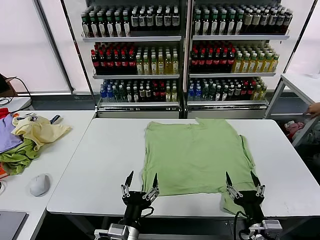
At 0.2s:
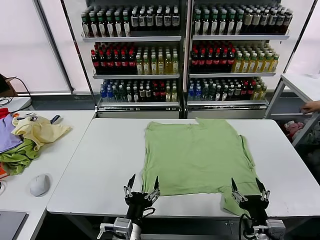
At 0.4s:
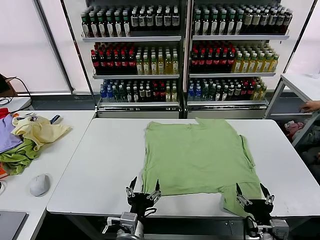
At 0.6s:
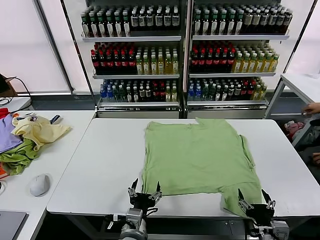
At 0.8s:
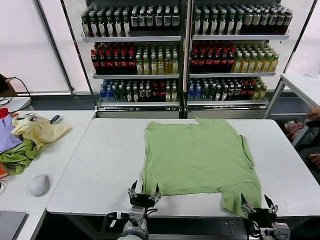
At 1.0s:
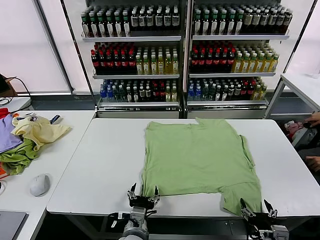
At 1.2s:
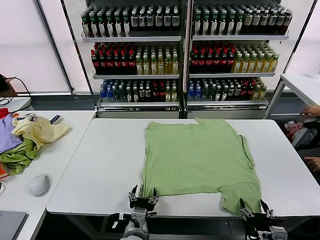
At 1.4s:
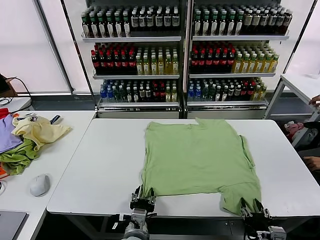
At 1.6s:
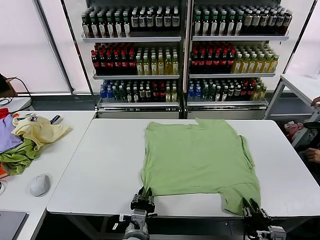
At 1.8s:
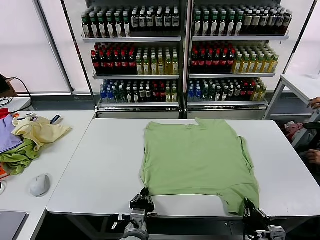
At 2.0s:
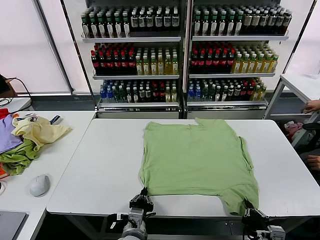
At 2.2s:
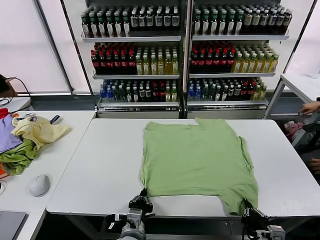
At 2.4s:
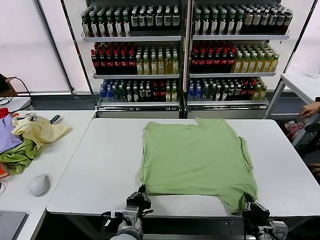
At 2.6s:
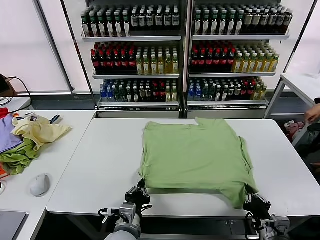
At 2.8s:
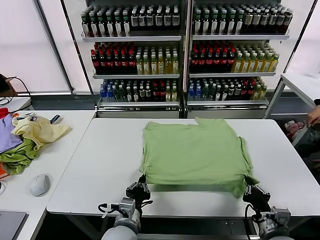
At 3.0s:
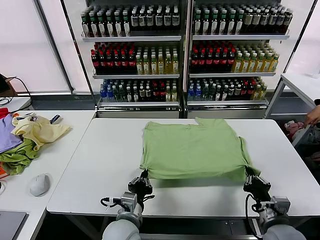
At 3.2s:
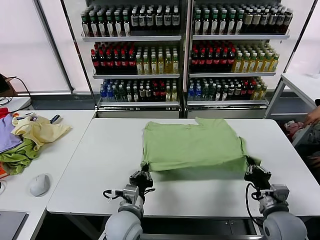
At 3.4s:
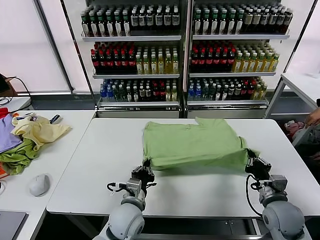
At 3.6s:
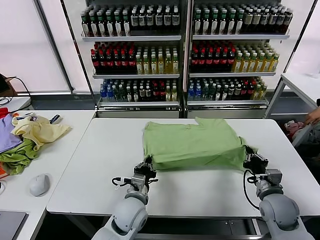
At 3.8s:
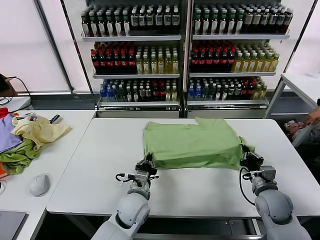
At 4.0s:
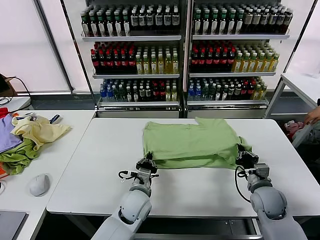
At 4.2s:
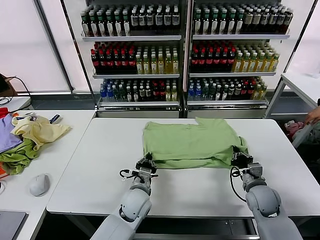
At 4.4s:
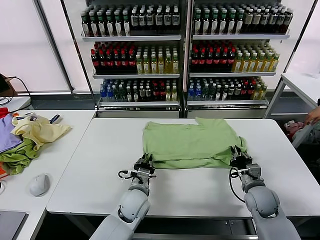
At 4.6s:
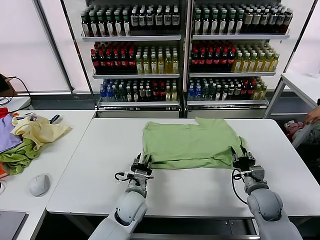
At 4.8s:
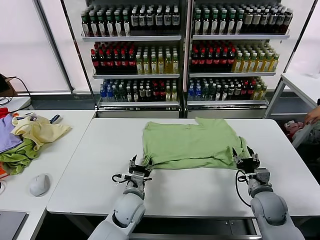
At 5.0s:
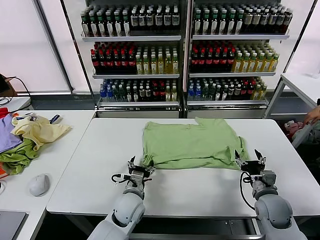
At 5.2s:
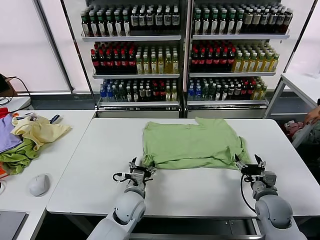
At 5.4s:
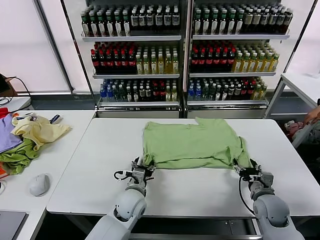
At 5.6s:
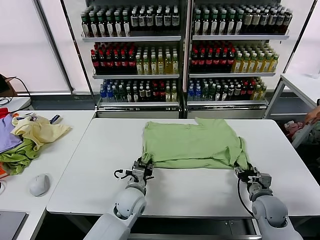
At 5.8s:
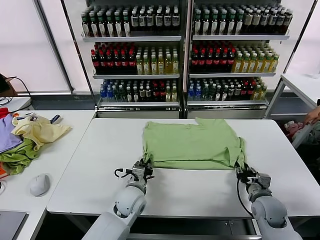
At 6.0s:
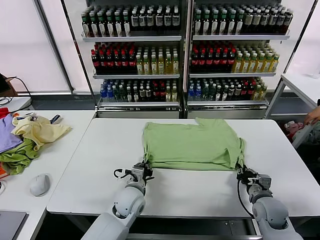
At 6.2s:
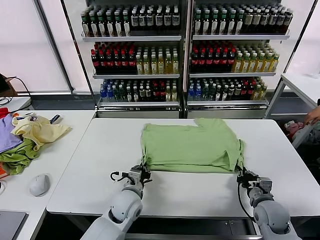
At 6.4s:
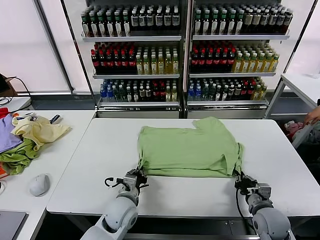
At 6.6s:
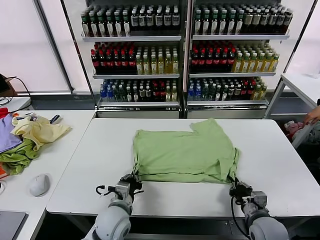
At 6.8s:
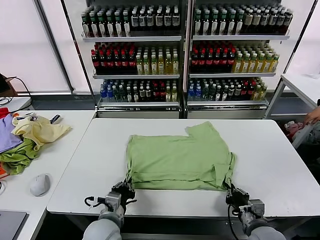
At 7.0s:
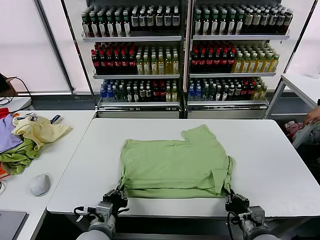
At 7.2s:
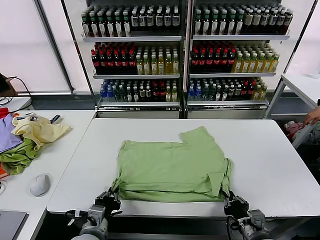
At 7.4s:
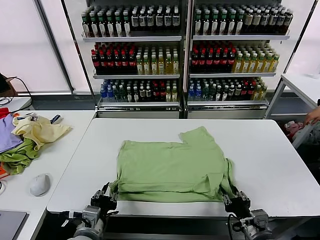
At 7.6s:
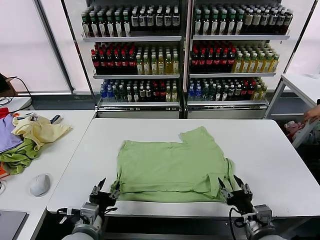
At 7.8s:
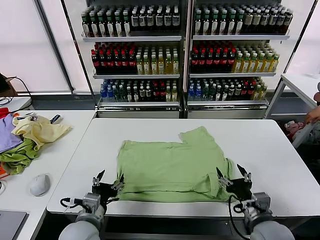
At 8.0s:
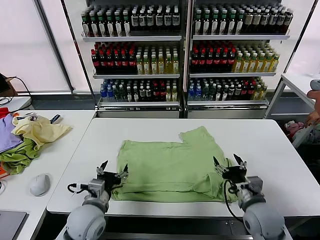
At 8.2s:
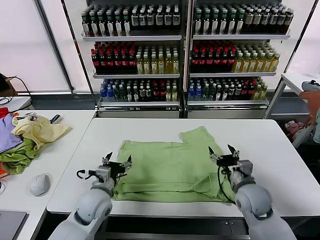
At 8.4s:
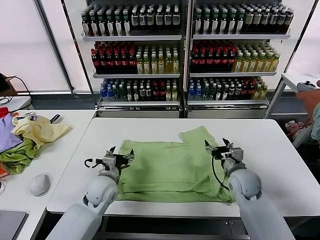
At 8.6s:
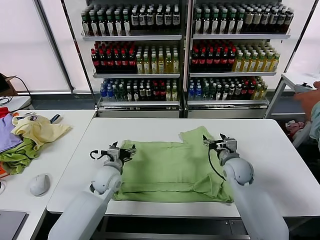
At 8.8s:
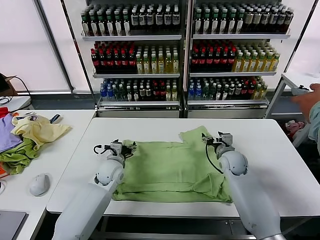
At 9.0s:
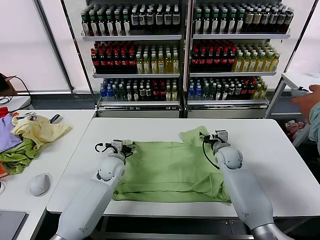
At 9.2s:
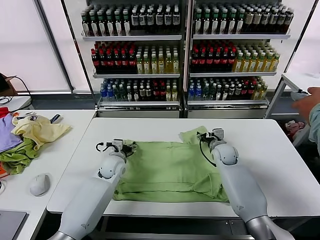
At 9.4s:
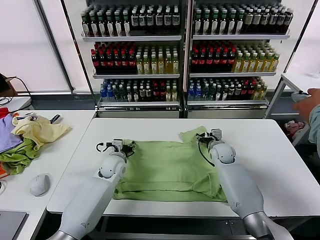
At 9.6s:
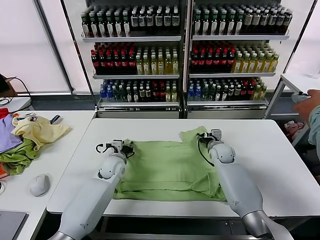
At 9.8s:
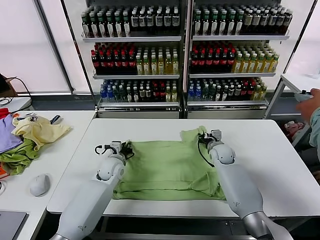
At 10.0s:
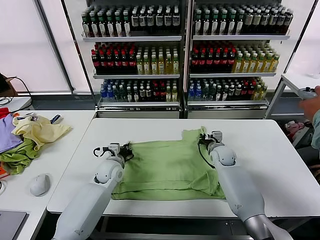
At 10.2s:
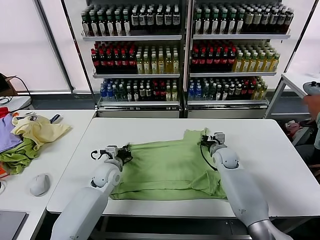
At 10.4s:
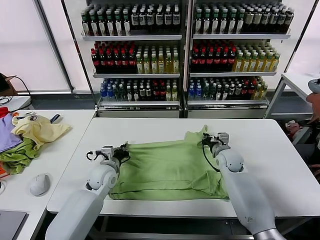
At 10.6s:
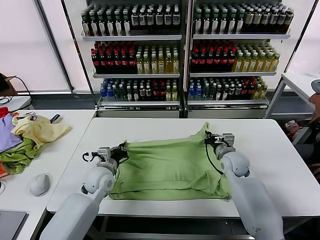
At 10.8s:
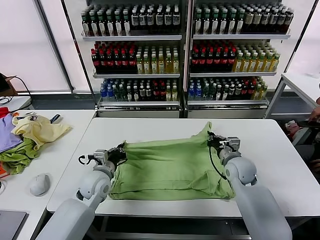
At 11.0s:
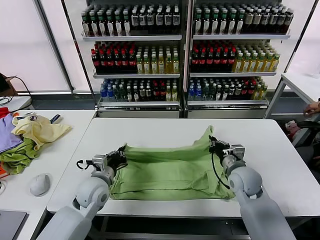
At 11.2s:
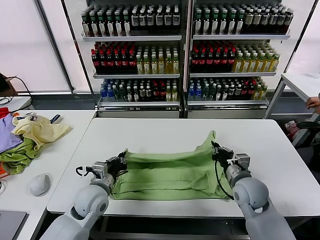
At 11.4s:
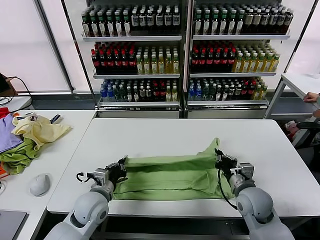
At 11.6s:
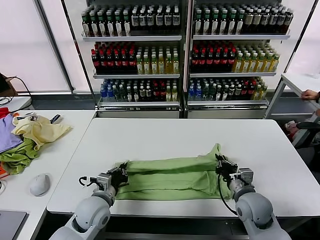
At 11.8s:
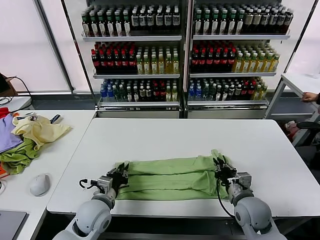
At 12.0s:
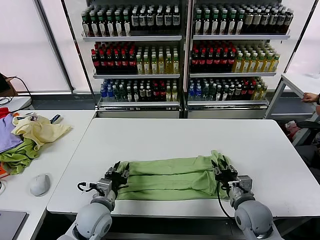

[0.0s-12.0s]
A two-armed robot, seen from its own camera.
Task of the whole recording: fold and organize the clothes.
Step, 0.0s to 1.8s: use both grippers simultaneously to clamp the lower edge of the clothing fabric.
Step, 2.0s to 4.6s: use both grippers to drag the lower edge of the fabric forward and fold it over the upper edge.
Step, 4.8s to 7.4s: Drag the clothes downward with both gripper.
Step, 7.6s to 10.0s: use both grippers simultaneously to clamp the upper edge of the clothing fabric.
1.6s to 3.0s: The right gripper heads forward and upward, covering roughly 10 cm, while the left gripper moves roughly 5 cm.
3.0s to 4.4s: Both grippers move forward, approximately 10 cm. The left gripper opens. Meanwhile the right gripper opens up.
4.4s to 6.0s: The right gripper opens, then closes again. The left gripper opens, then closes once more.
6.0s to 7.6s: The right gripper moves backward, to the left and upward, approximately 15 cm, and opens its fingers. The left gripper shifts approximately 20 cm backward and to the left, and opens up.
7.6s to 9.0s: The grippers both shift forward by approximately 30 cm.
9.0s to 10.4s: The right gripper closes its fingers, while the left gripper closes.
10.4s to 12.0s: Both grippers travel together backward, roughly 15 cm. The left gripper opens; the right gripper opens up.

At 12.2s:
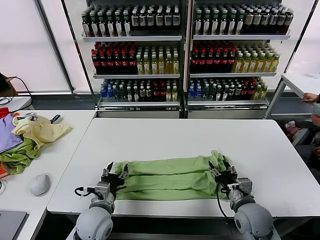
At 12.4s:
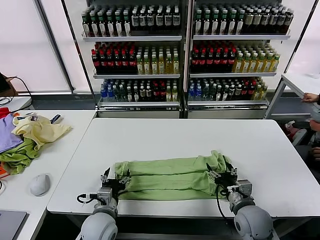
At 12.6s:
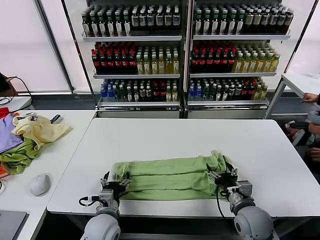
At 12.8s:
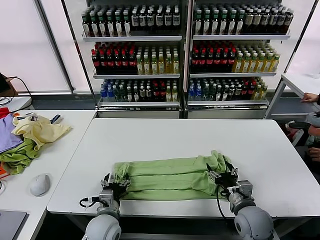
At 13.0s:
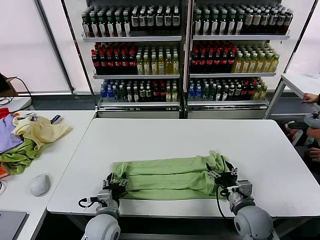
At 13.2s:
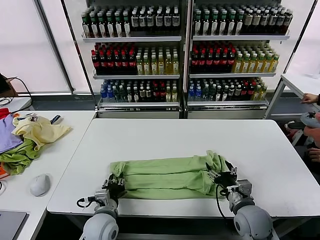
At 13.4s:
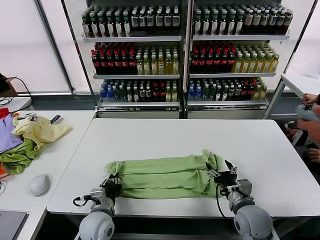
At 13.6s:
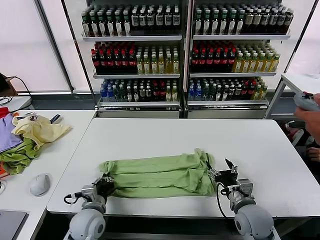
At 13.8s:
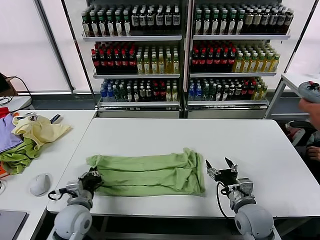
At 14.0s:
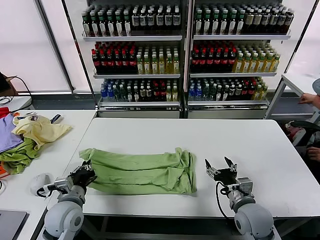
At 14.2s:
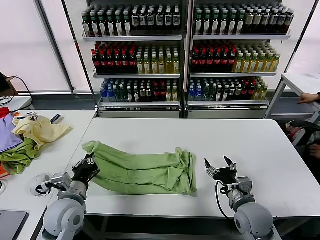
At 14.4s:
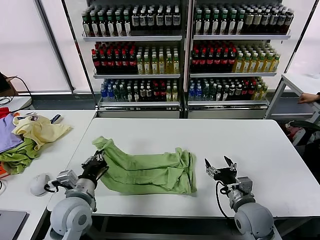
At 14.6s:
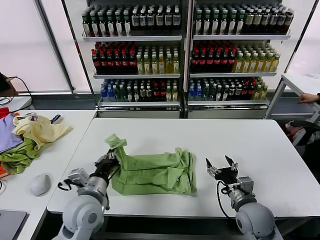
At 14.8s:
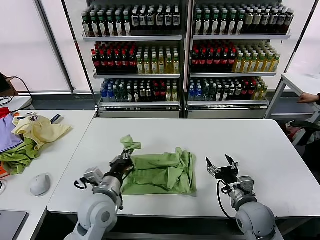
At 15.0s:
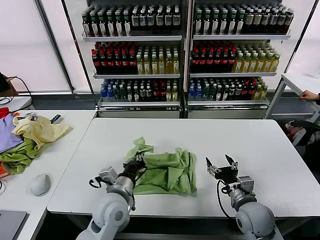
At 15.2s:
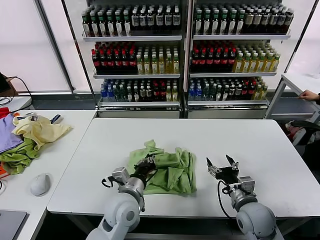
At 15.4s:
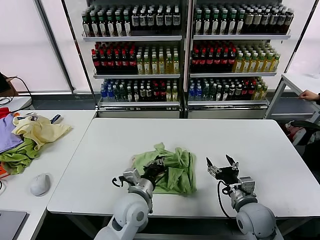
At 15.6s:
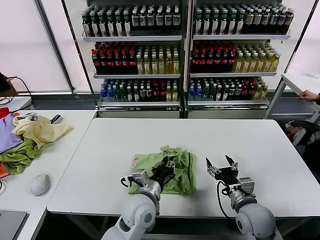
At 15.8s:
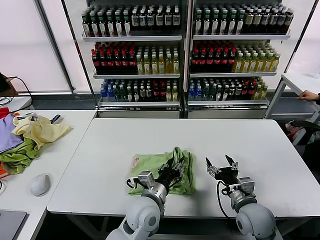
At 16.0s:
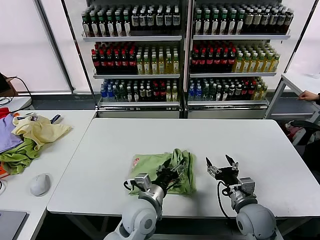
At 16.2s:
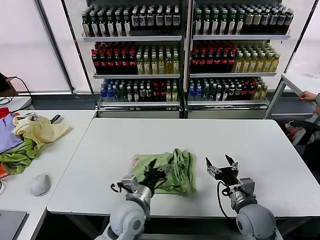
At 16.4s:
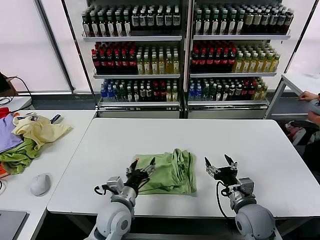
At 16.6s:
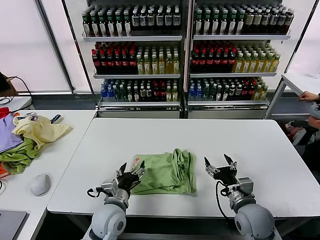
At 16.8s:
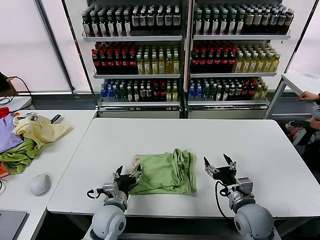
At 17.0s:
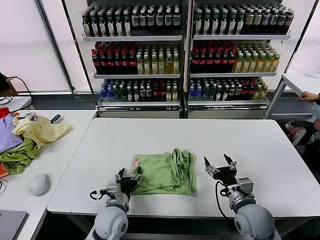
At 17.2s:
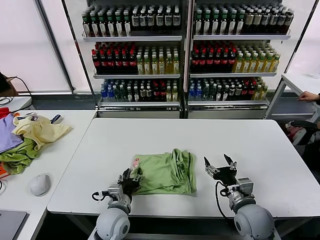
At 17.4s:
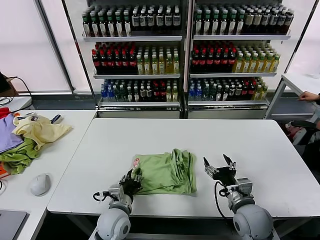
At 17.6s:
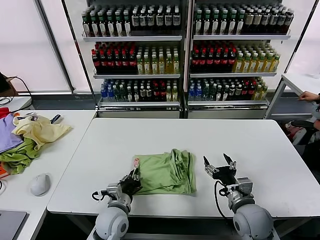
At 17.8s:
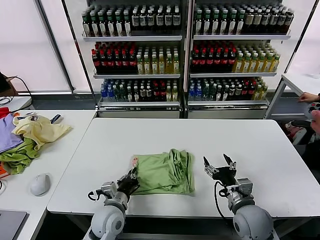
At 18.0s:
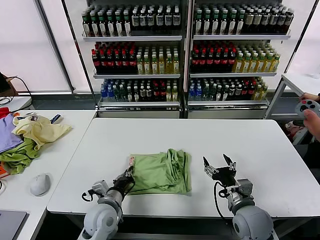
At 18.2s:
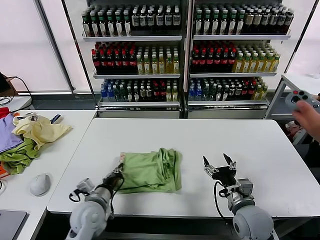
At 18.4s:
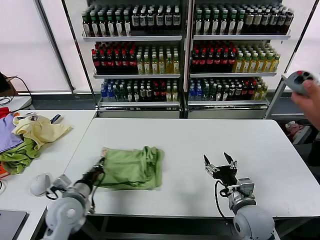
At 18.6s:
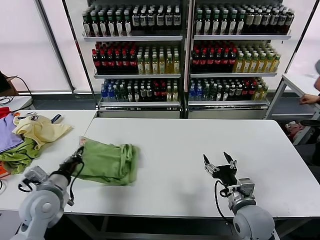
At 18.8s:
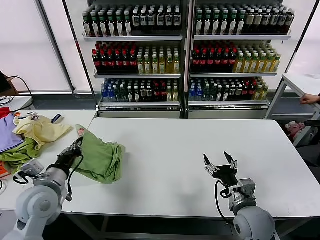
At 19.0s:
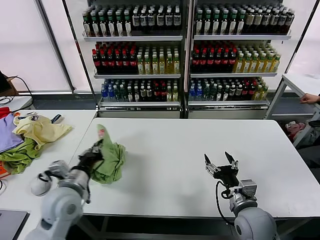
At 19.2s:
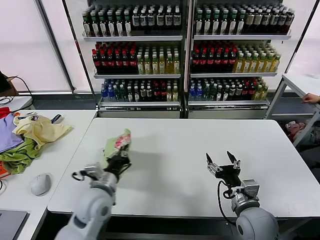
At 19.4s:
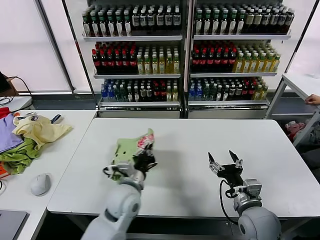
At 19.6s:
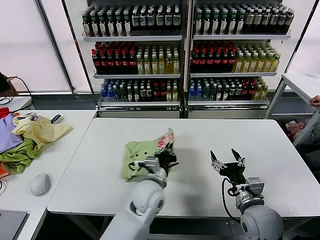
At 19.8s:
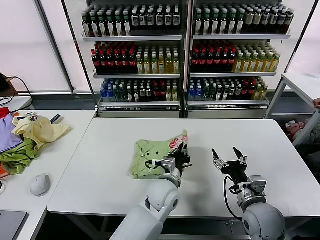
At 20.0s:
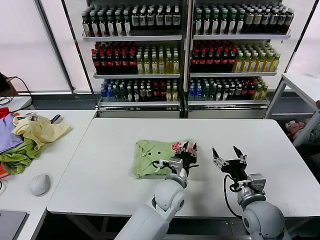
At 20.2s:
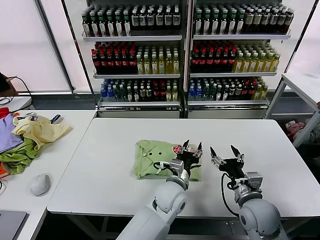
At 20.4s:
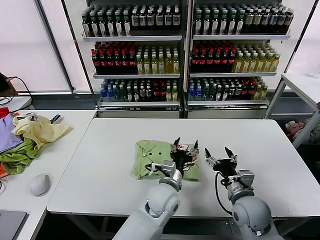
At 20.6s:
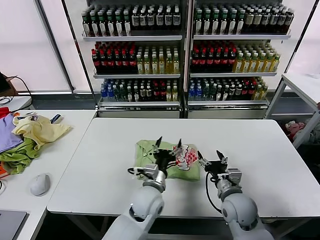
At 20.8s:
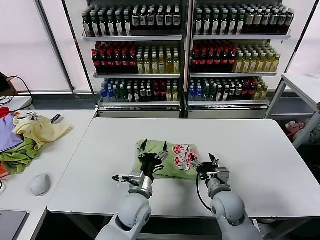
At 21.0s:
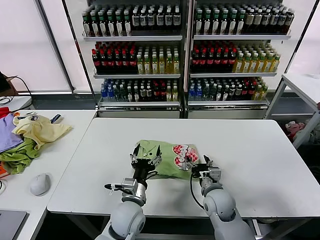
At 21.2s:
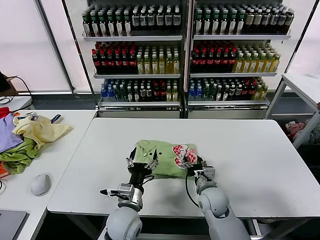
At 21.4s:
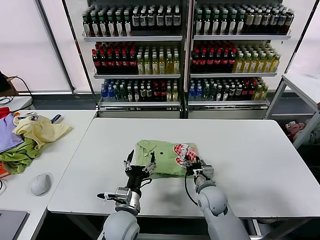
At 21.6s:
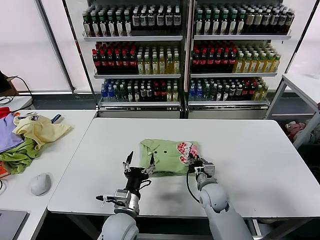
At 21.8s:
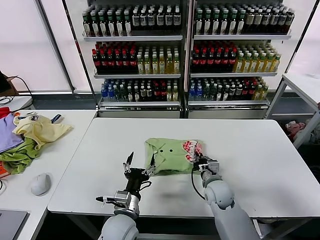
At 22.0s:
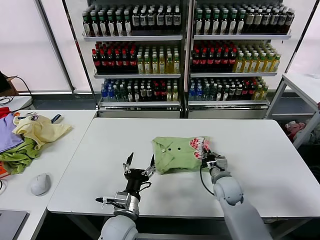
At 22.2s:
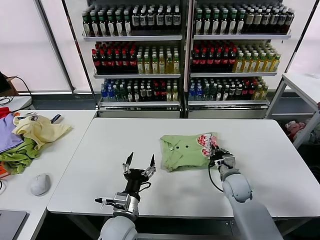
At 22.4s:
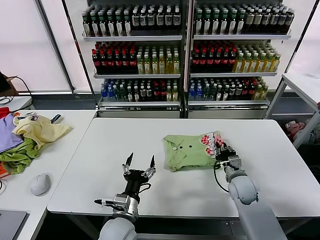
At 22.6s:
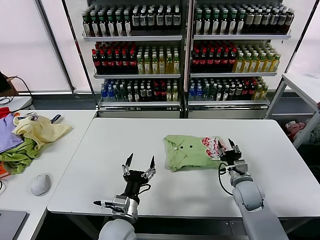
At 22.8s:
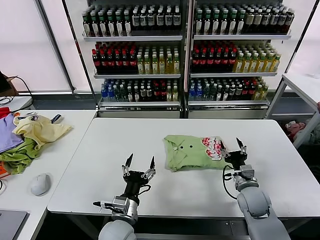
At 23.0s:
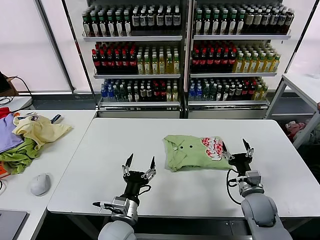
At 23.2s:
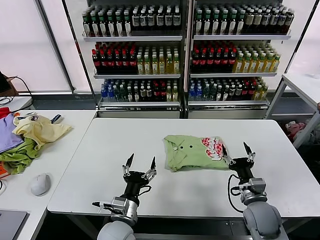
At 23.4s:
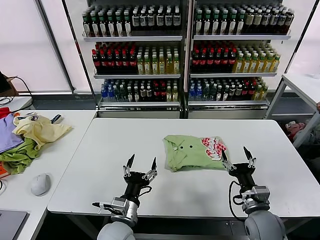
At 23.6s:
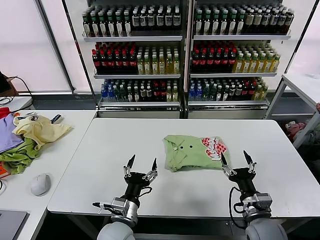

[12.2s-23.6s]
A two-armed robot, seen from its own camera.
Task of the whole recording: fold and organize the clothes.
Step, 12.2s to 13.4s: use the left gripper to clamp the left edge of the fabric.
Step, 13.6s to 16.0s: use the left gripper to drag the left edge of the fabric to the left and folds it over the right edge.
Step, 16.2s to 20.0s: Flip the folded clothes over with left gripper.
Step, 20.2s to 22.4s: Drag the clothes to the center of the table.
12.2s to 13.6s: The left gripper closes its fingers.
13.6s to 15.0s: The left gripper shifts roughly 10 cm upward and to the right.
15.0s to 16.4s: The left gripper reaches approximately 10 cm to the right, then returns, and opens.
16.4s to 17.8s: The left gripper shifts by roughly 5 cm, and closes up.
17.8s to 19.4s: The left gripper is displaced upward by about 10 cm, and goes to the left and returns, about 15 cm each way.
19.4s to 20.8s: The left gripper moves about 15 cm to the right and comes back, and opens. The right gripper shifts approximately 10 cm forward and to the left.
20.8s to 22.2s: The left gripper heads backward, covering about 5 cm, while the right gripper is displaced forward and to the right by roughly 10 cm, and closes its fingers.
22.2s to 23.6s: The right gripper heads backward, covering about 15 cm, and opens up.
